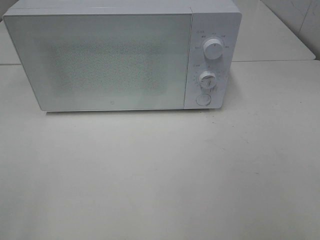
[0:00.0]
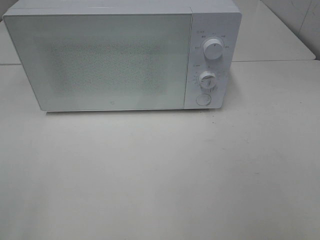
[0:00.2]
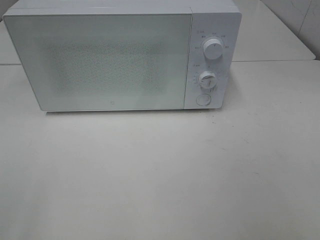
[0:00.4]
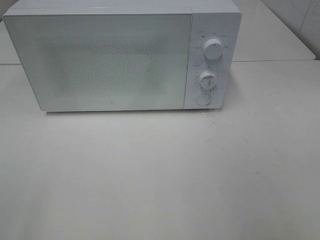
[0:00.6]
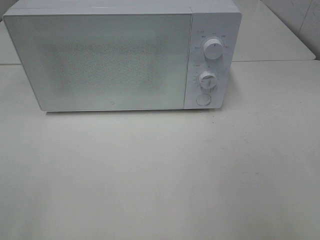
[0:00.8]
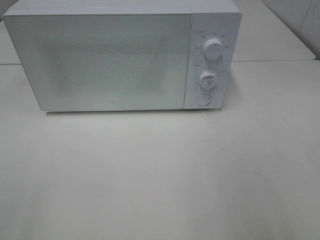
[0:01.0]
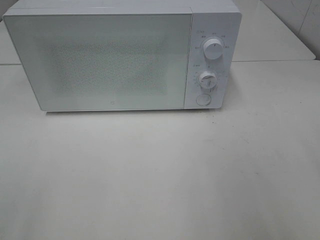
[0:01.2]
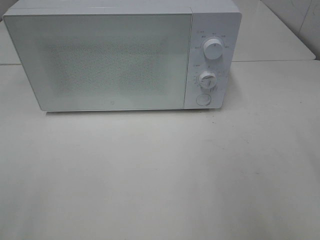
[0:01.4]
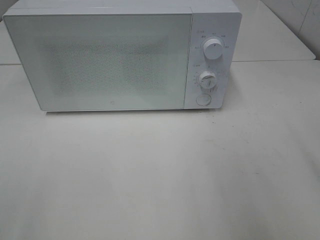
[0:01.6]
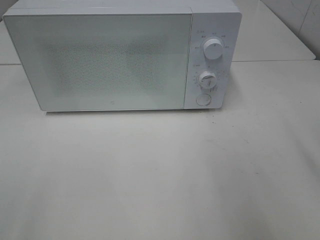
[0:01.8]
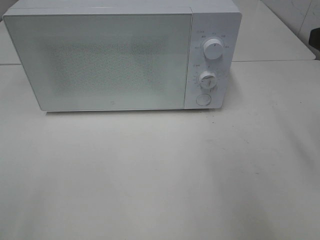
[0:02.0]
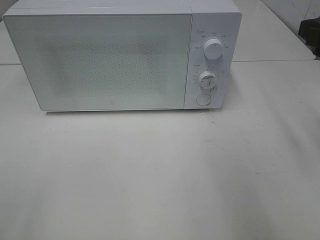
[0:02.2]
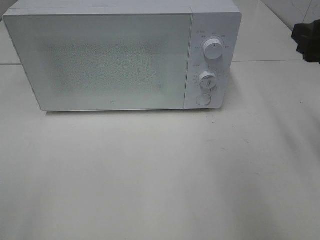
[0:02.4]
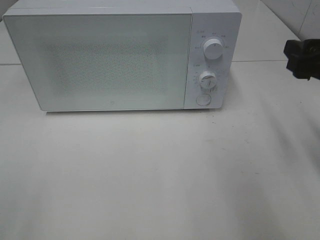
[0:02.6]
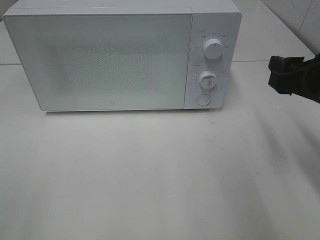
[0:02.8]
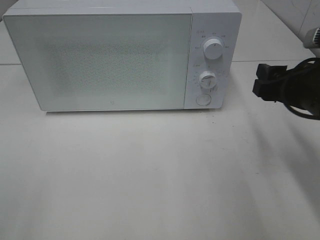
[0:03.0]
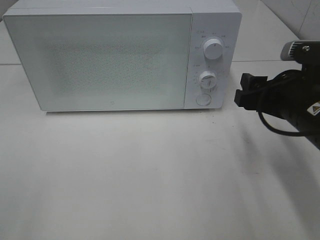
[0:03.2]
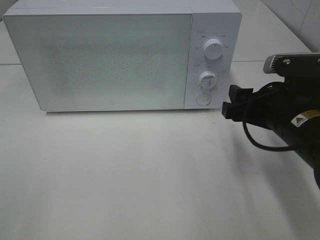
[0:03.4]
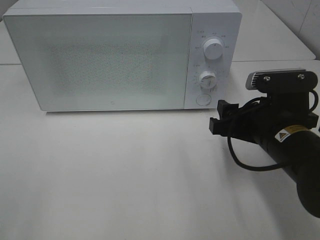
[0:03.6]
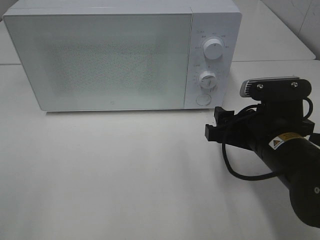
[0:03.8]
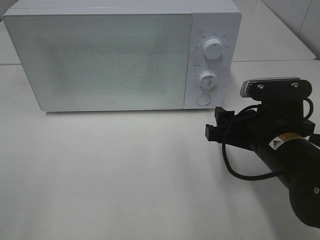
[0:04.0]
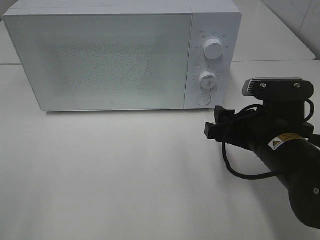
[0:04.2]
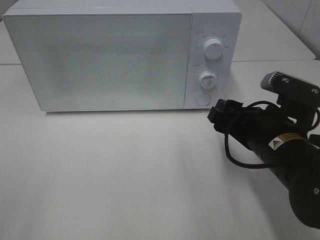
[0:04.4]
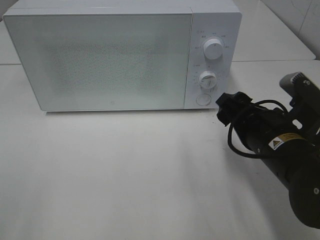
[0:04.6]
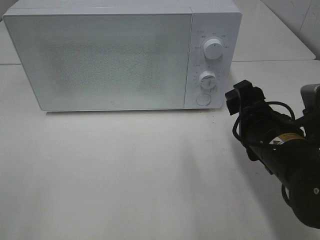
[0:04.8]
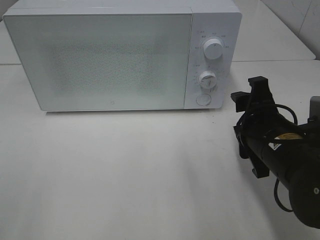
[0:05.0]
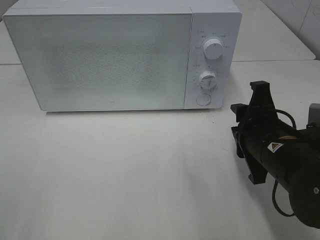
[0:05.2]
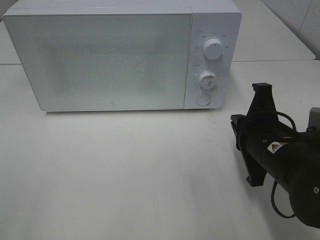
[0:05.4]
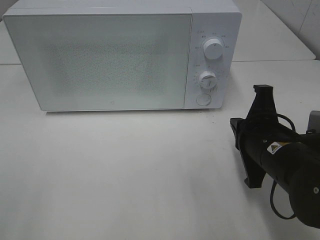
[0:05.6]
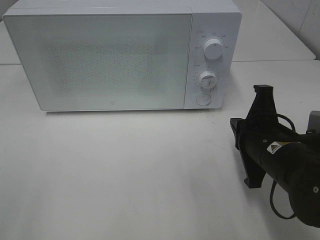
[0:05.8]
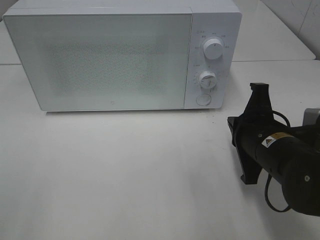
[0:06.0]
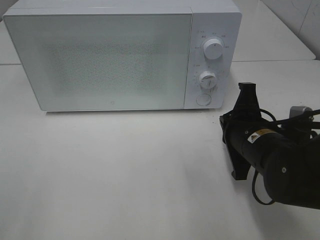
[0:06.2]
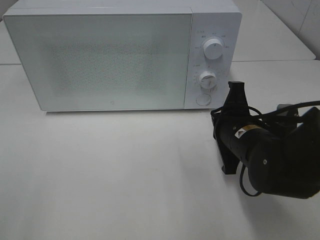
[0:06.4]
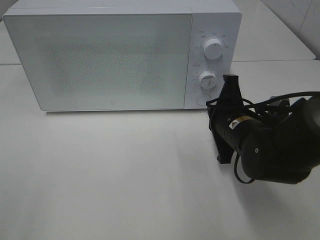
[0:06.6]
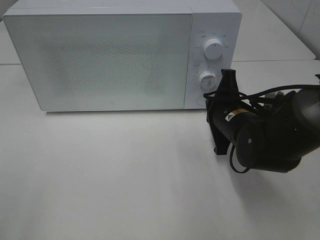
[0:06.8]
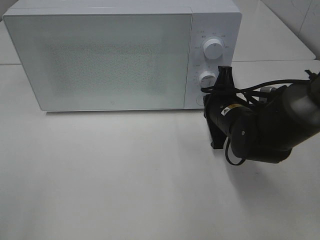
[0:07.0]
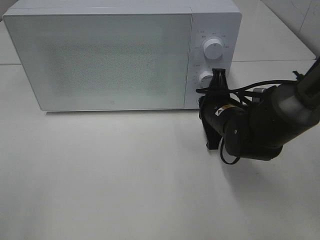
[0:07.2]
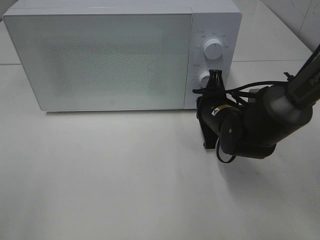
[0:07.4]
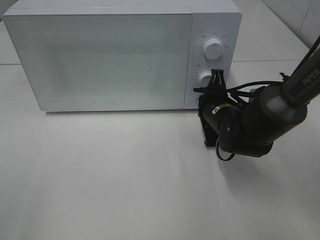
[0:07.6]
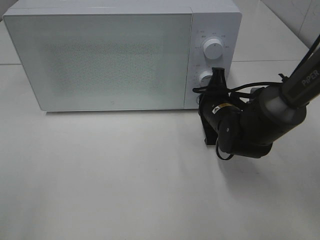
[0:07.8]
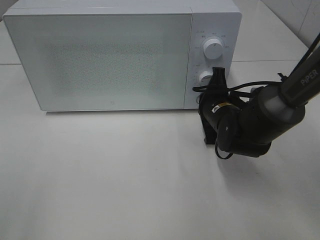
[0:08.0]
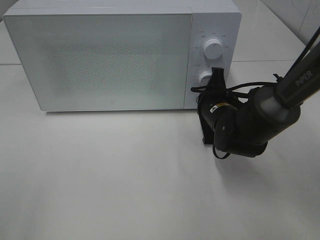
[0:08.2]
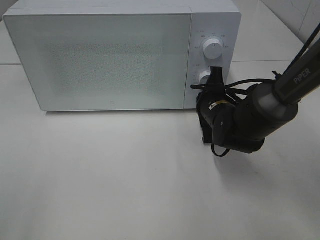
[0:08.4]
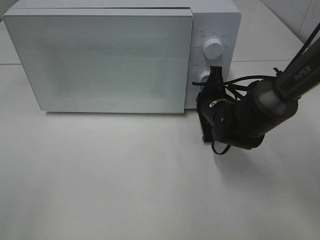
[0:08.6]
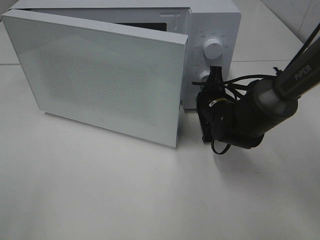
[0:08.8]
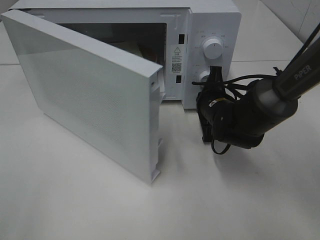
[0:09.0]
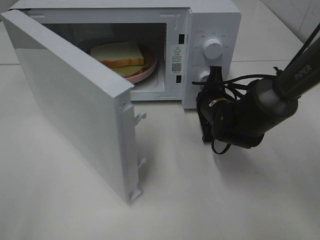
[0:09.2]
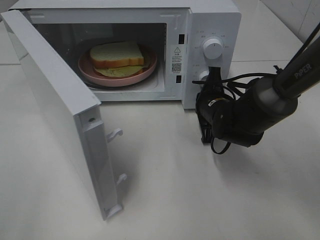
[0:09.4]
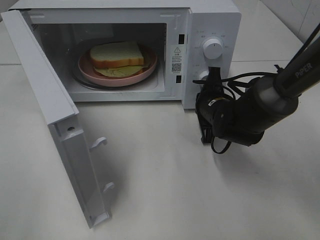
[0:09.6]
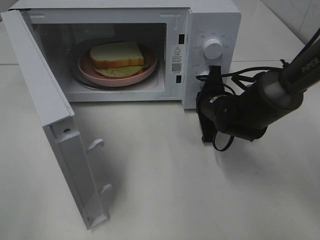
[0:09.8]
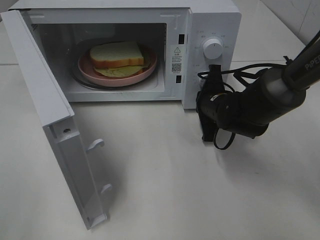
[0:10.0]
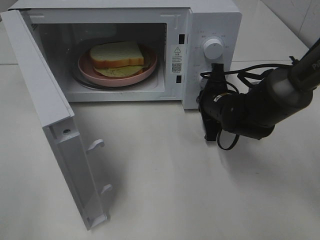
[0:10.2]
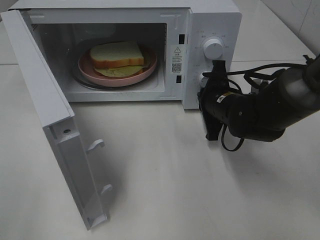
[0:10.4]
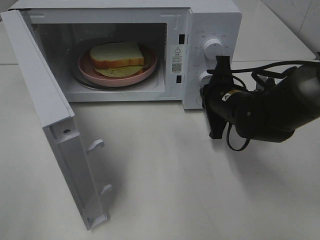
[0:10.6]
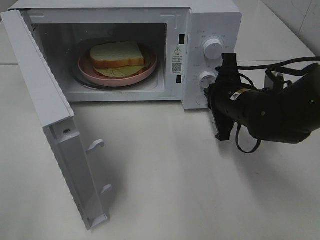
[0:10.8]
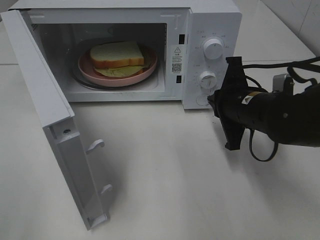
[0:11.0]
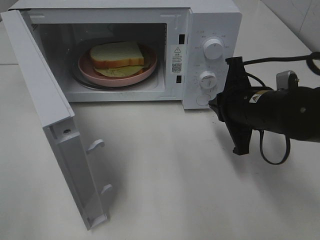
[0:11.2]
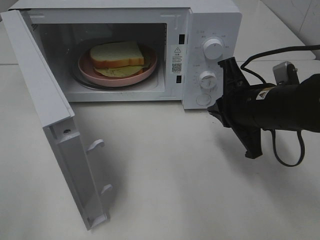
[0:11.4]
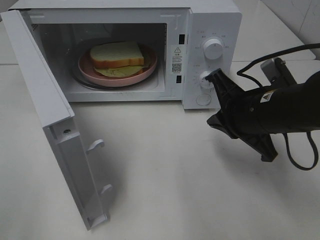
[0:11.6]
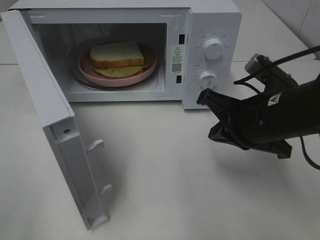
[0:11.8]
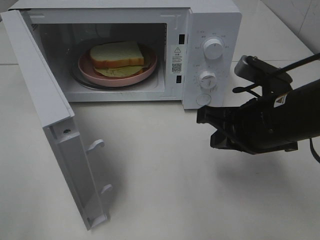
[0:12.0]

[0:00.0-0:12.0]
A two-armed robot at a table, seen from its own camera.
Task of the whole recording: Heat Sandwich.
Step, 0:00.0 to 0:10.4: Right hand: press the switch.
0:01.6 to 0:03.0: The right gripper heads downward and forward, covering approximately 15 cm.
0:03.0 to 0:04.4: The right gripper moves to the left and downward, roughly 10 cm.
0:04.4 to 0:06.0: The right gripper closes.
0:06.0 to 0:07.6: The right gripper goes some 15 cm forward and downward.
0:10.4 to 0:12.0: The right gripper travels backward and upward by about 15 cm.

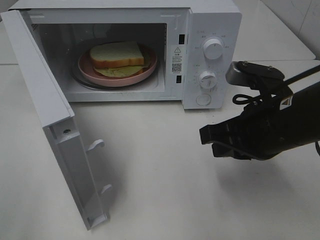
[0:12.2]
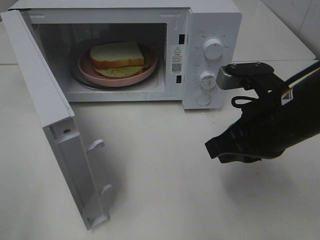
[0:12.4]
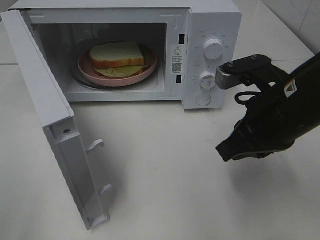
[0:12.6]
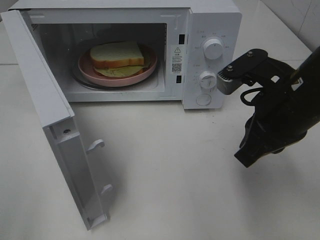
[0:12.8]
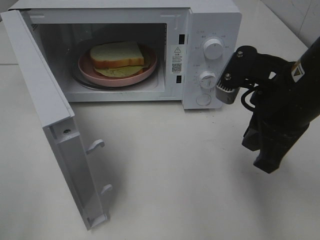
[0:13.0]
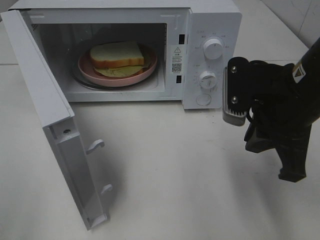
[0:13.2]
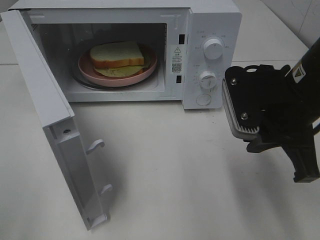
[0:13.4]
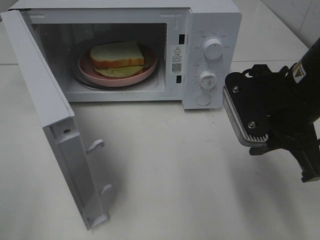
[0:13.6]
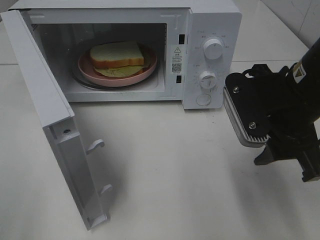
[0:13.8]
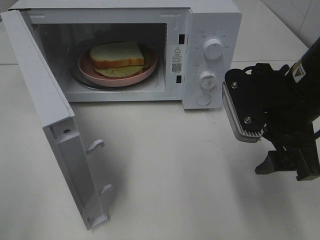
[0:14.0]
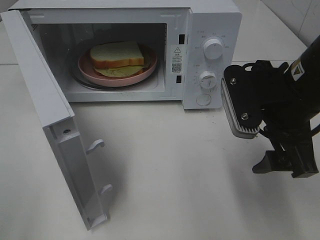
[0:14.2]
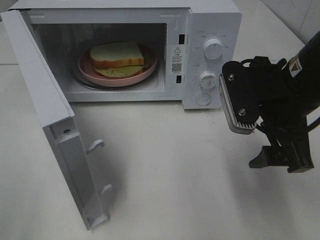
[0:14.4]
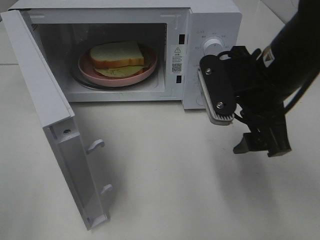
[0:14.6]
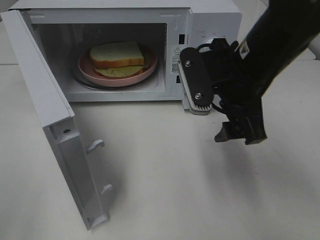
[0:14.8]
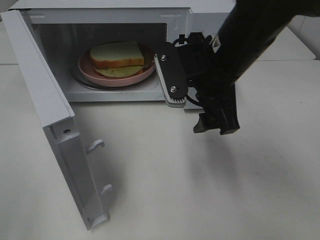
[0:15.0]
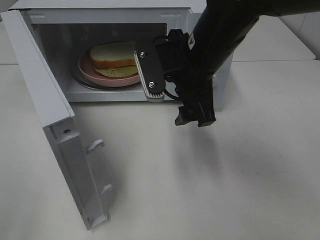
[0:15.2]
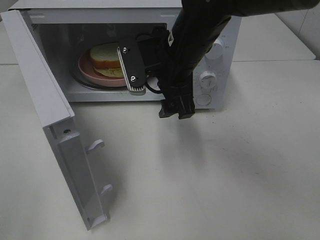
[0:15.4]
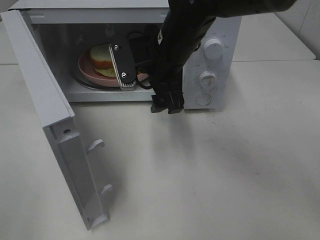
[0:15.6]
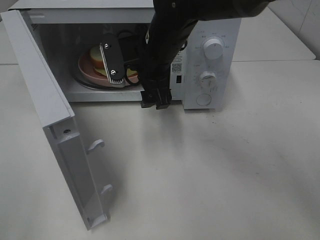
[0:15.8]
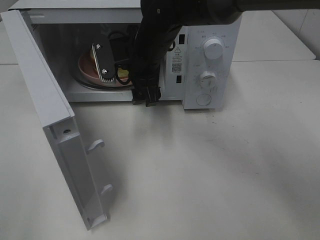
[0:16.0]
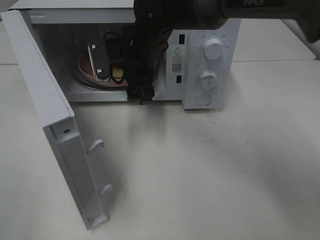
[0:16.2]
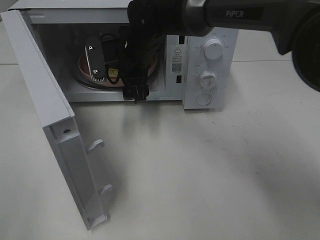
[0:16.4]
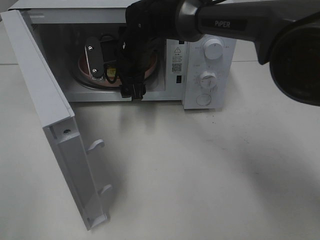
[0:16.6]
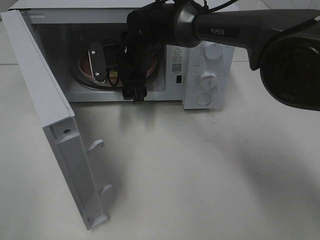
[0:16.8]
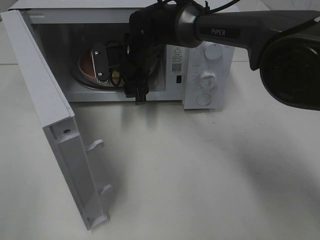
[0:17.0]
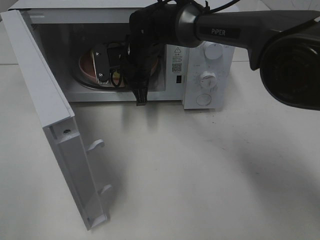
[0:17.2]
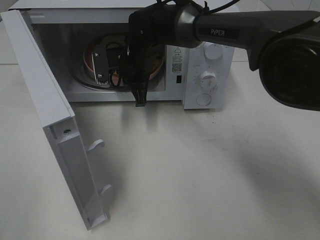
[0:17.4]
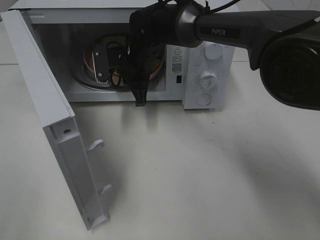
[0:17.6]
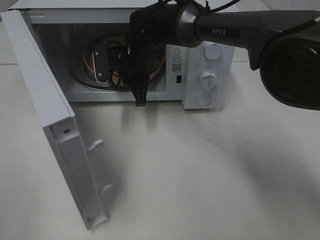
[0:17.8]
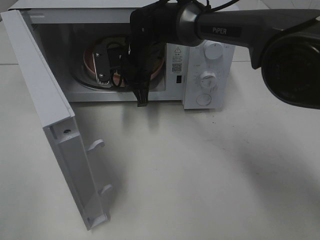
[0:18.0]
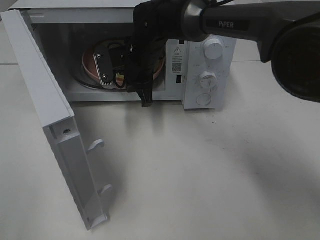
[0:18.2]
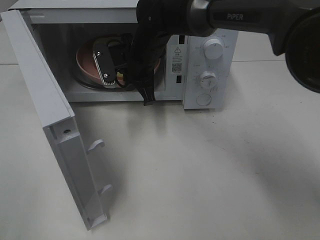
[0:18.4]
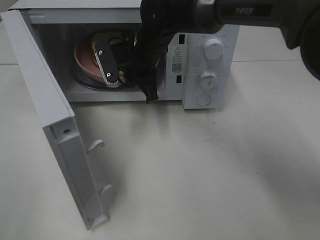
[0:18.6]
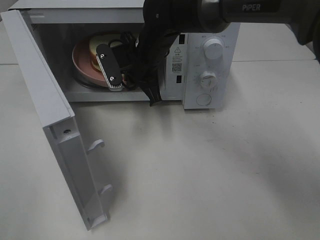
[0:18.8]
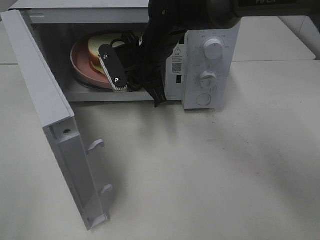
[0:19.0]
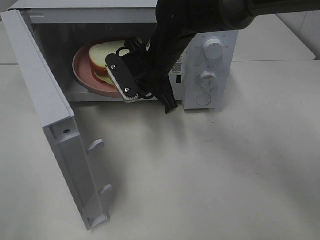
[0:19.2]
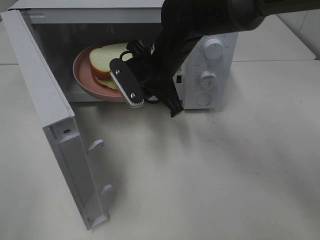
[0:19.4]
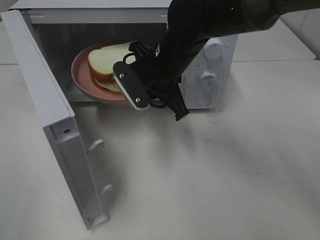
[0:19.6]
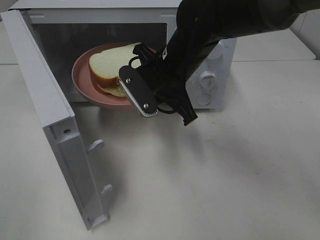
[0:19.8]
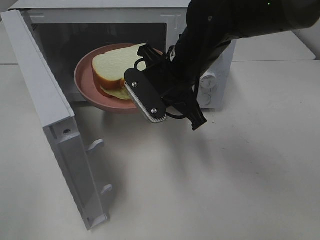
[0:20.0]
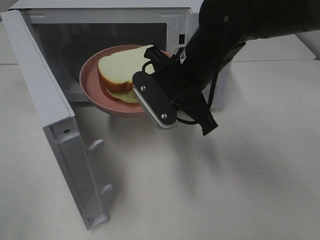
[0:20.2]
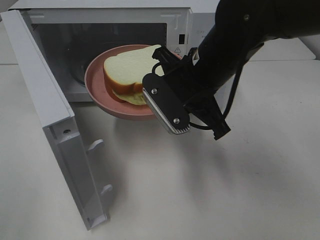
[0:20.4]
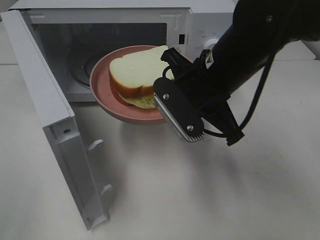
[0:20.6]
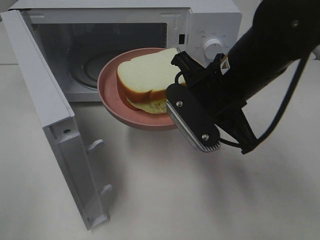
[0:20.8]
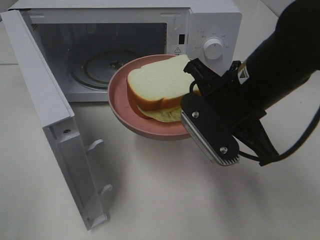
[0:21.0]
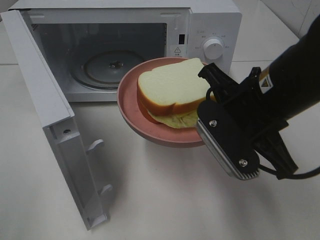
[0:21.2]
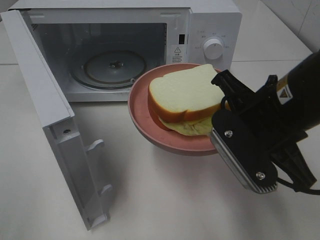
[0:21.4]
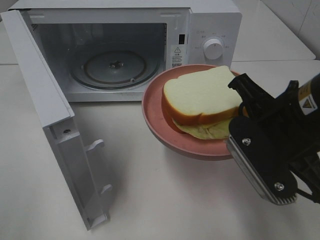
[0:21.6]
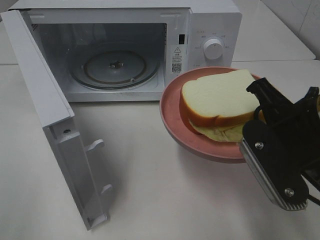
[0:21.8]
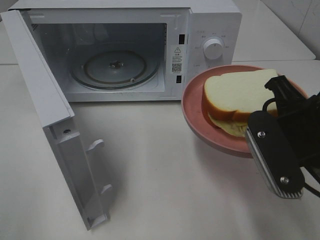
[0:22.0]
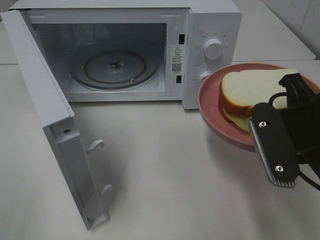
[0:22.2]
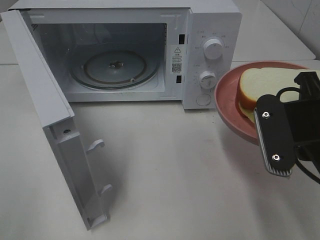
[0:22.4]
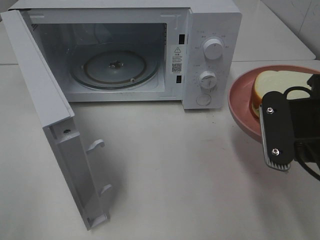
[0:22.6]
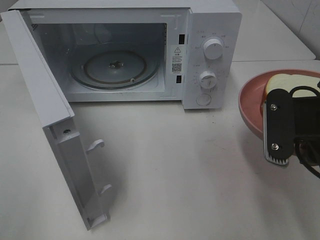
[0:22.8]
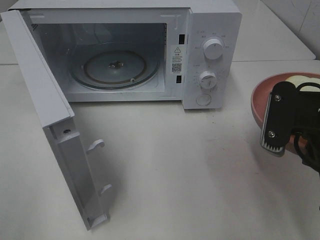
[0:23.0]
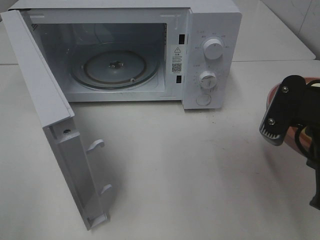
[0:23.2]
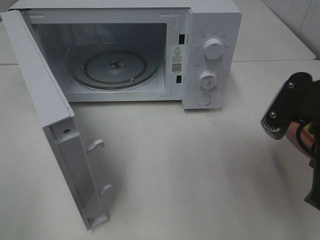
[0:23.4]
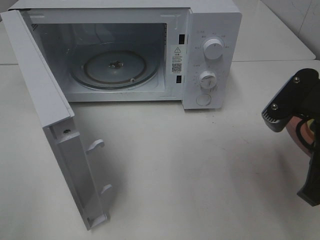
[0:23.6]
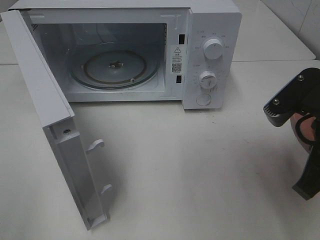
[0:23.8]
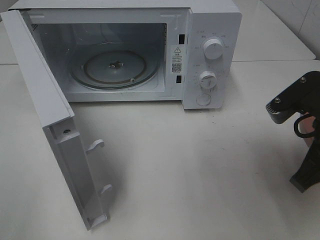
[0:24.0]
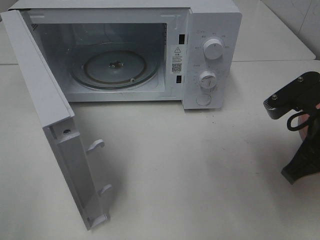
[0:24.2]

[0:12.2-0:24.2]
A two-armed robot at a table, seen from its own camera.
Task of the whole recording: Heat Sandwich.
Step, 0:12.2 to 0:17.4: Right hand: grab the plate with the sandwich.
0:12.2 to 0:13.8: The right gripper opens.
0:13.8 to 0:15.2: The right gripper moves to the left and forward, approximately 15 cm.
0:15.2 to 0:16.6: The right gripper travels forward, to the left and downward by roughly 15 cm.
0:16.6 to 0:18.2: The right gripper closes.
0:18.2 to 0:19.8: The right gripper heads backward and to the right, covering about 10 cm.
0:19.8 to 0:21.2: The right gripper goes some 15 cm backward and to the right.
0:21.2 to 0:22.6: The right gripper moves to the right, approximately 5 cm.
0:22.6 to 0:24.2: The right gripper shifts by about 5 cm.
